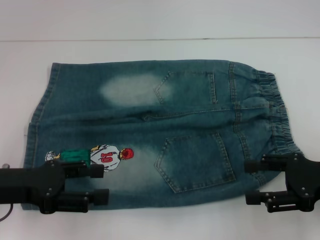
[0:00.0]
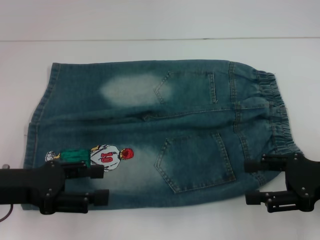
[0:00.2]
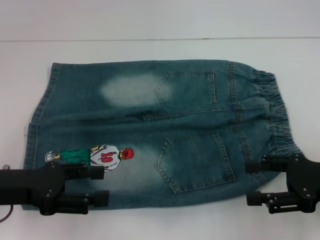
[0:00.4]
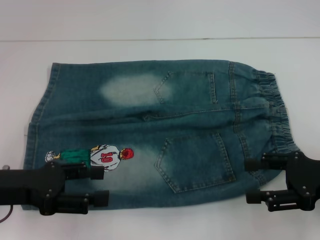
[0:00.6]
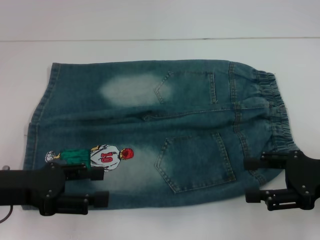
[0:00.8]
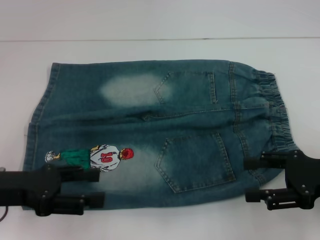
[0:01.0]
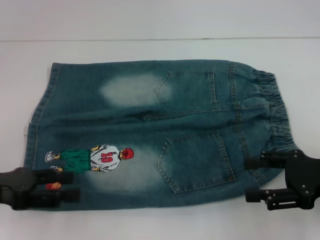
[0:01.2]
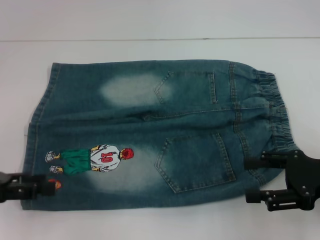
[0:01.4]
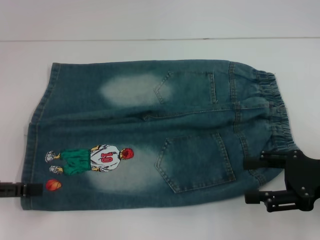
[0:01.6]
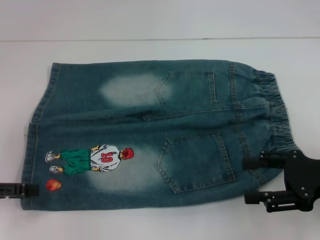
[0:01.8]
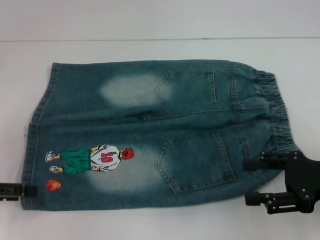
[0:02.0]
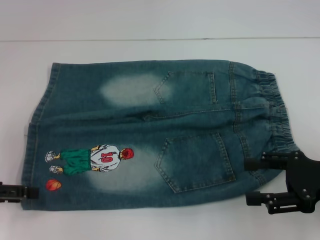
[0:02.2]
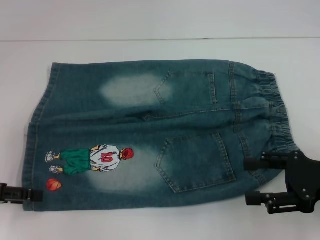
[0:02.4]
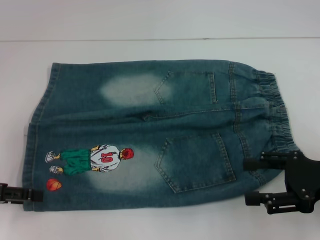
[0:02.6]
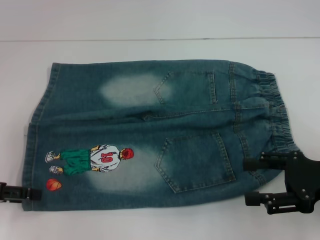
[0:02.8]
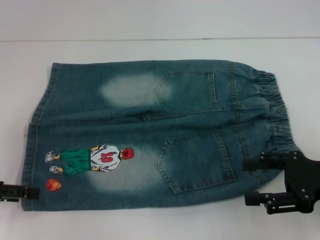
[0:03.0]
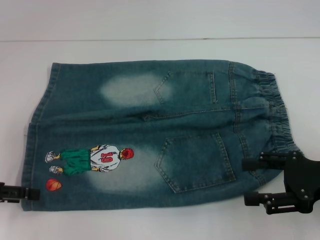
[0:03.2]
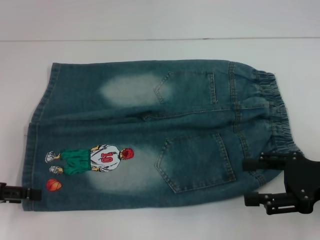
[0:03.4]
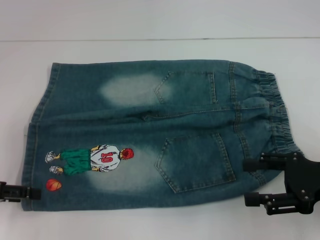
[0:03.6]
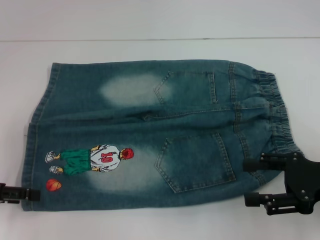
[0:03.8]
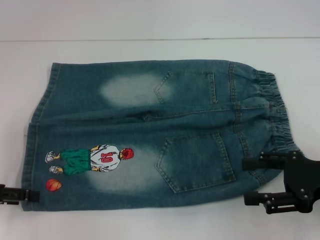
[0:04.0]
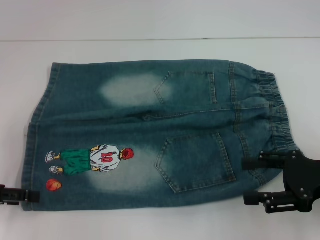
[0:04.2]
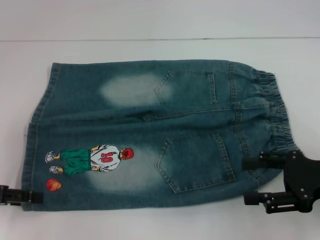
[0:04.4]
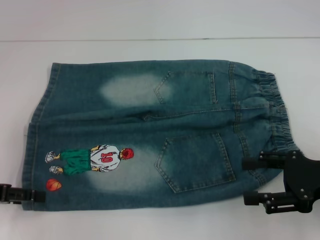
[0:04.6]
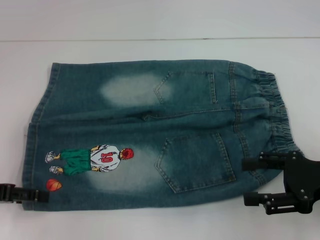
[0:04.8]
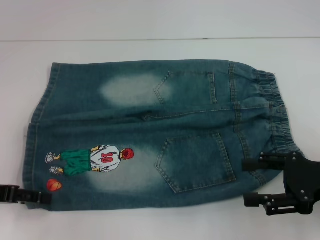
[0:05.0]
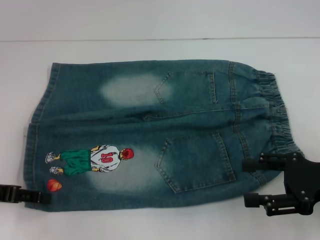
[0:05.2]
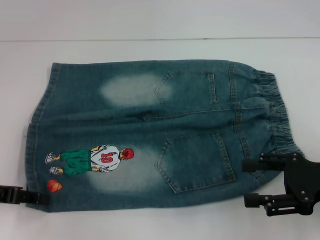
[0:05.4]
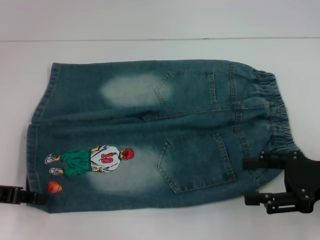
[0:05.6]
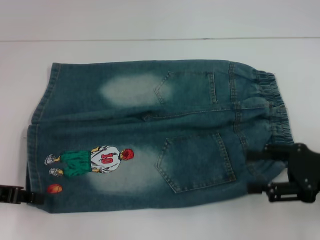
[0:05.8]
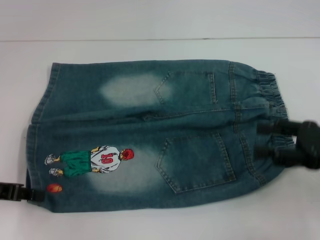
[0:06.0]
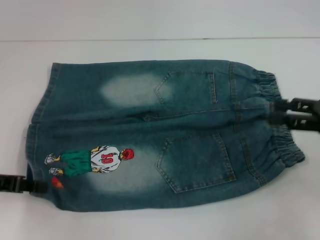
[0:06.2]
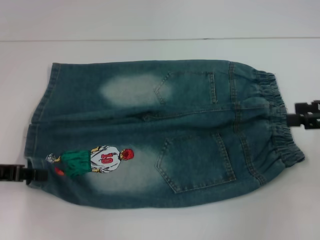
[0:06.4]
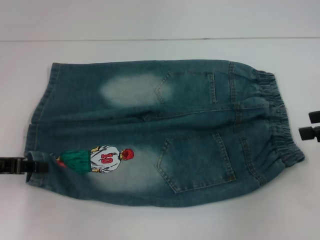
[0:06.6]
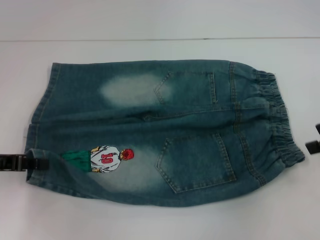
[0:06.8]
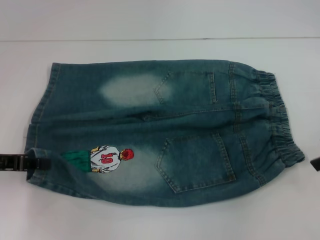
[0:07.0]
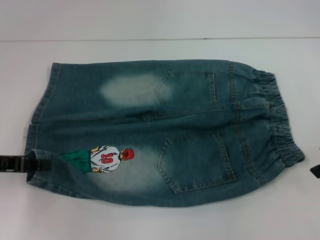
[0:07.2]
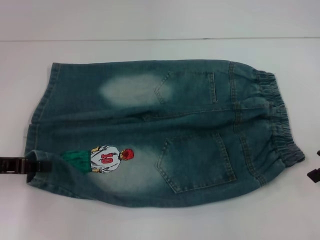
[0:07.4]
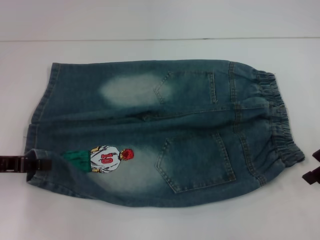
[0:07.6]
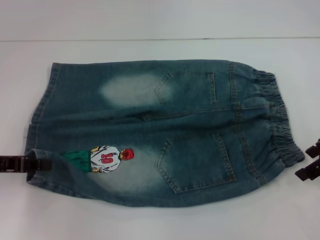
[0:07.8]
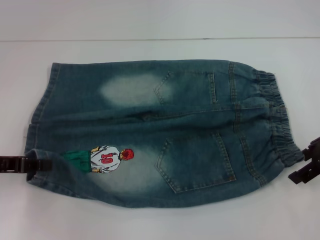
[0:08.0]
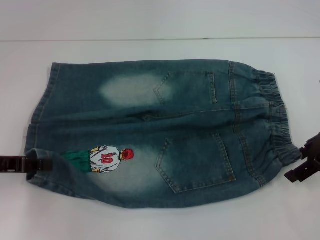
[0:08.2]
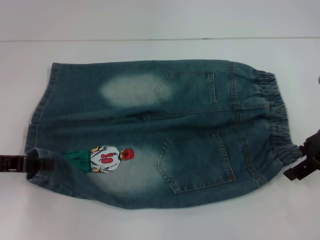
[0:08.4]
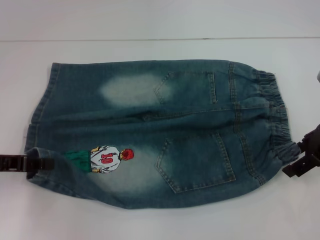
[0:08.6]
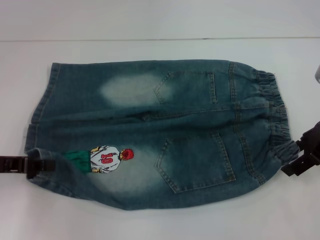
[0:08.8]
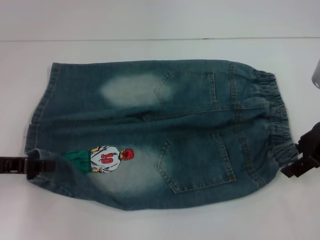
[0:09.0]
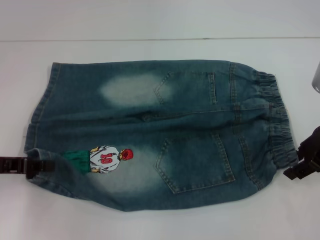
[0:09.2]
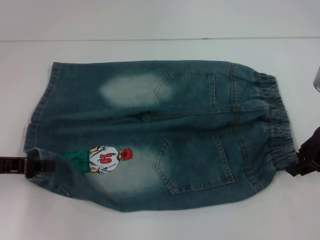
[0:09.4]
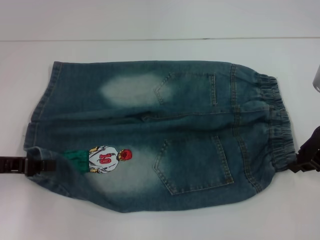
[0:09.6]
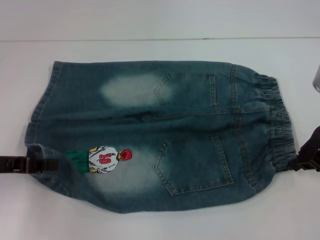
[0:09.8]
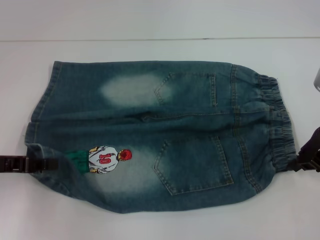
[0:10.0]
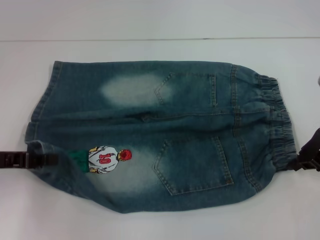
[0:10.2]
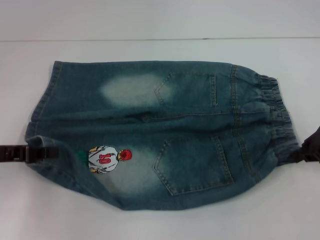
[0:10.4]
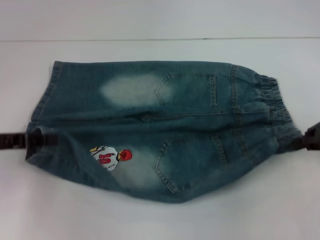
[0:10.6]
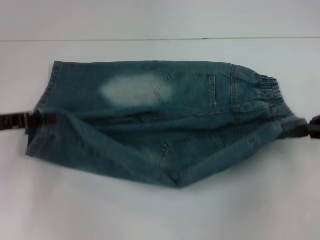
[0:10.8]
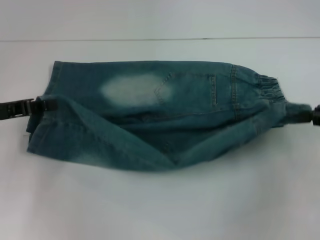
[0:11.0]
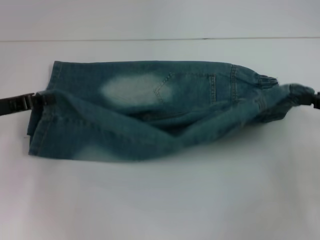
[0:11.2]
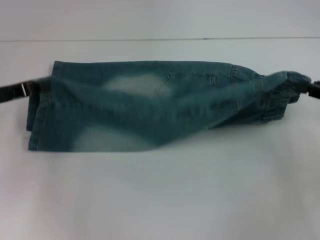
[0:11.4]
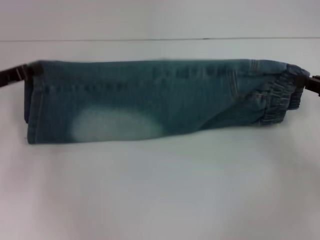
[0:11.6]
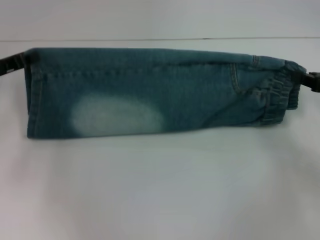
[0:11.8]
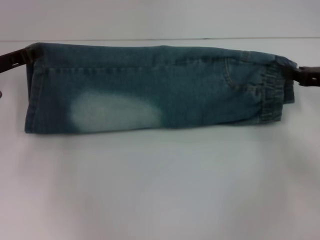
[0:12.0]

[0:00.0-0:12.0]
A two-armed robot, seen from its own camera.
Step, 0:00.0 to 0:05.0: Grab the lower left pant leg with your left hand.
Step, 0:05.4 to 0:09.2: Hold the lower right waistband with your right hand.
0:00.0 to 0:01.6: The left gripper moves to the left, approximately 10 cm.
0:01.6 to 0:03.0: The grippers move only a little.
0:03.0 to 0:04.4: Both grippers stay about where they are.
0:04.4 to 0:06.0: The left gripper closes up.
0:06.0 to 0:07.6: The right gripper moves forward, roughly 5 cm.
0:07.6 to 0:09.0: The grippers stay close to where they were, moving slightly.
0:09.0 to 0:10.4: The right gripper closes its fingers.
0:10.4 to 0:12.0: The right gripper changes place by approximately 5 cm. The left gripper travels forward by about 10 cm.

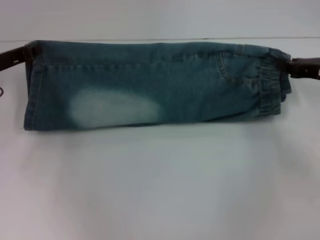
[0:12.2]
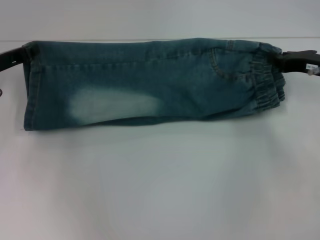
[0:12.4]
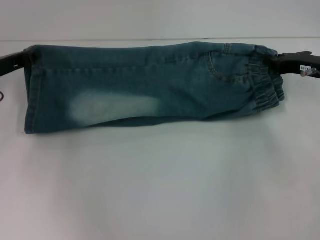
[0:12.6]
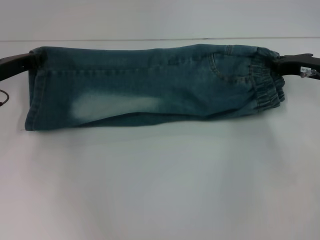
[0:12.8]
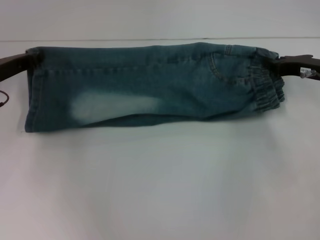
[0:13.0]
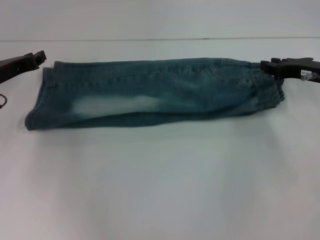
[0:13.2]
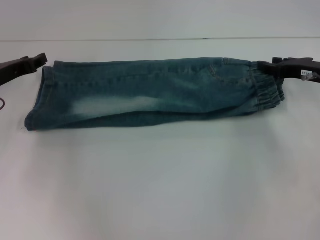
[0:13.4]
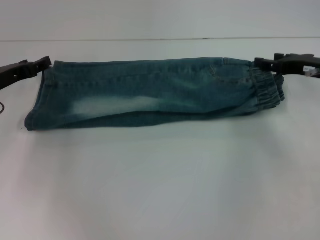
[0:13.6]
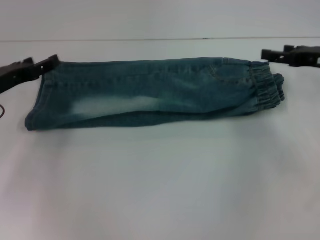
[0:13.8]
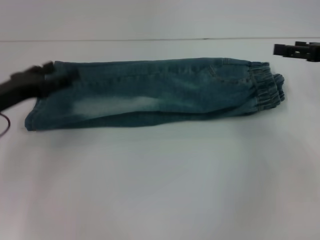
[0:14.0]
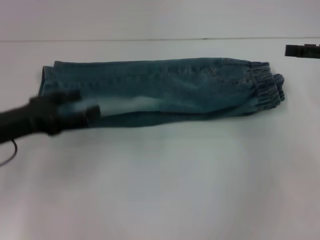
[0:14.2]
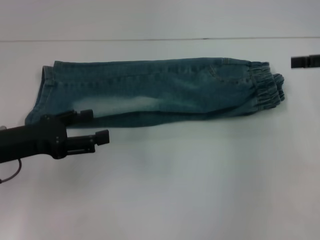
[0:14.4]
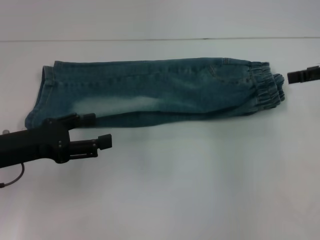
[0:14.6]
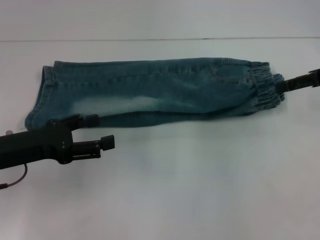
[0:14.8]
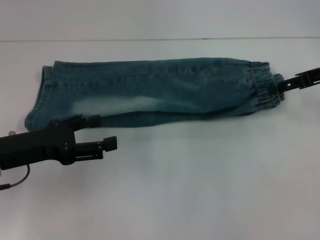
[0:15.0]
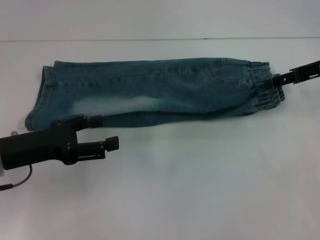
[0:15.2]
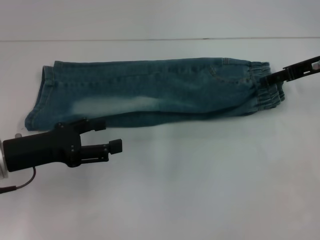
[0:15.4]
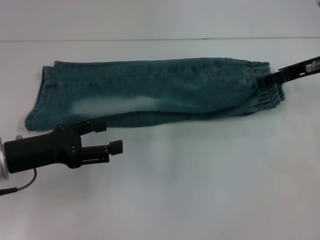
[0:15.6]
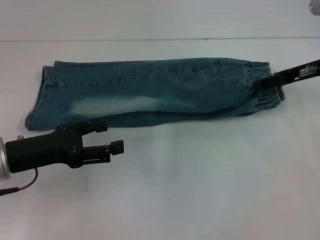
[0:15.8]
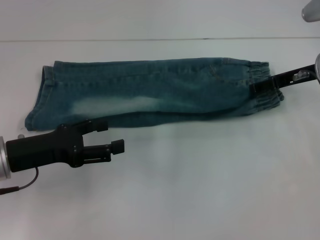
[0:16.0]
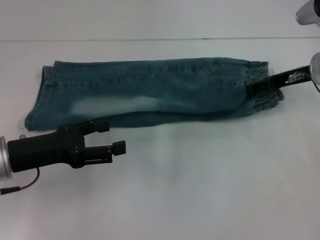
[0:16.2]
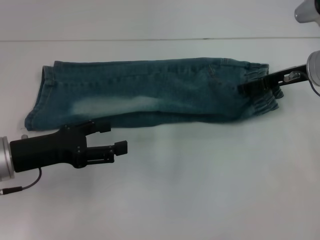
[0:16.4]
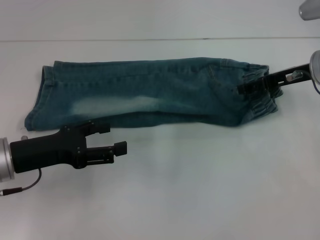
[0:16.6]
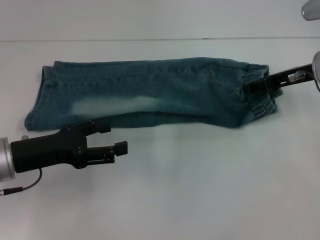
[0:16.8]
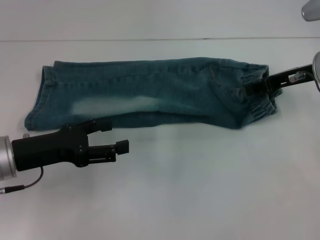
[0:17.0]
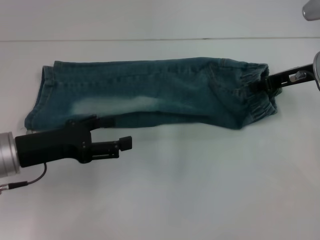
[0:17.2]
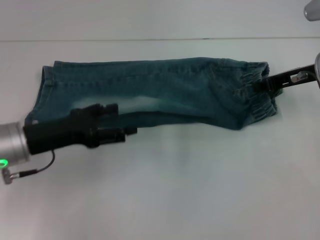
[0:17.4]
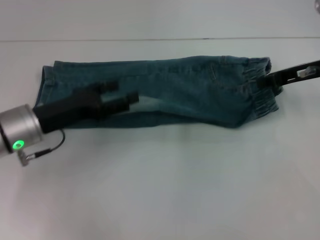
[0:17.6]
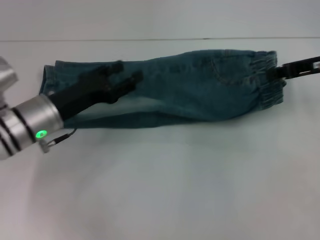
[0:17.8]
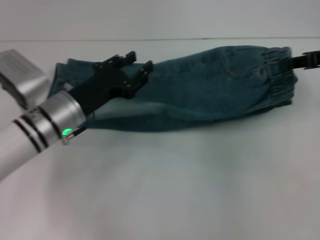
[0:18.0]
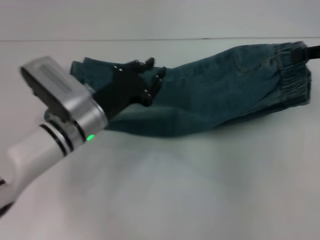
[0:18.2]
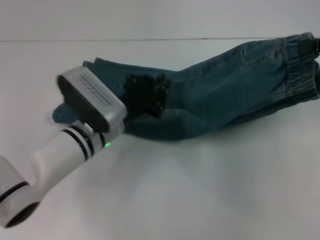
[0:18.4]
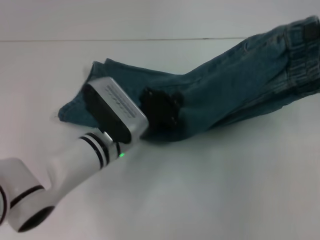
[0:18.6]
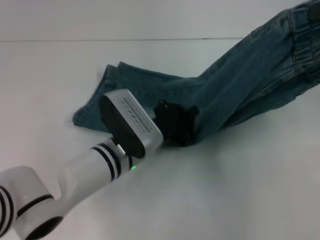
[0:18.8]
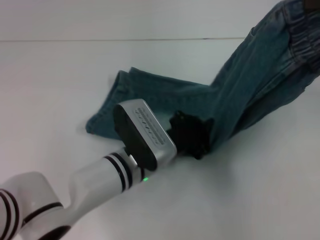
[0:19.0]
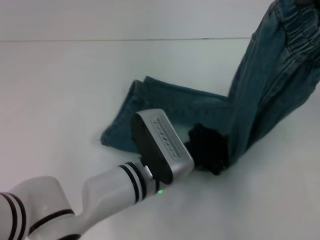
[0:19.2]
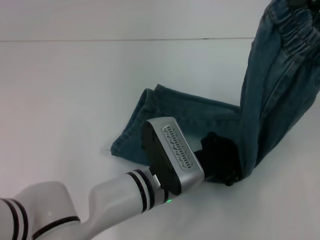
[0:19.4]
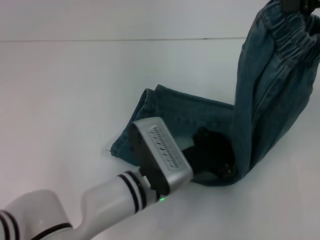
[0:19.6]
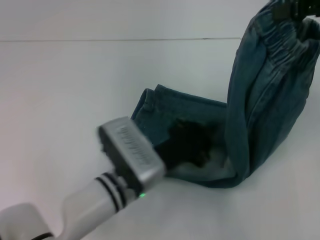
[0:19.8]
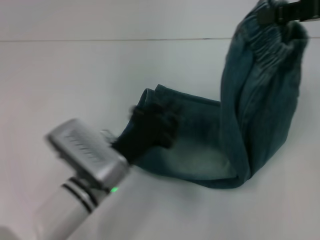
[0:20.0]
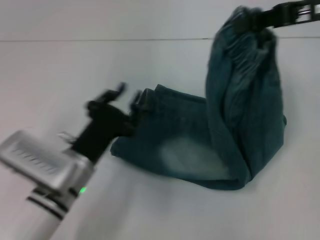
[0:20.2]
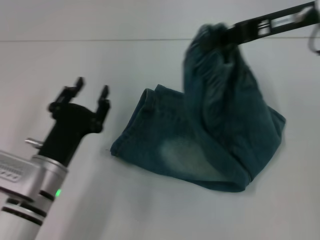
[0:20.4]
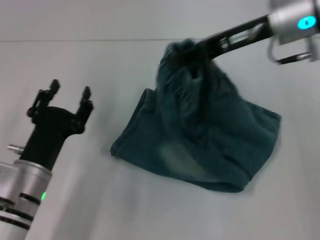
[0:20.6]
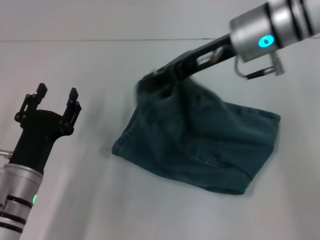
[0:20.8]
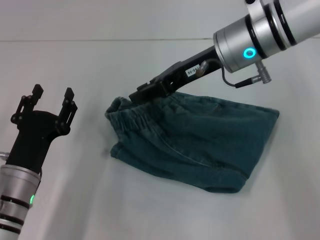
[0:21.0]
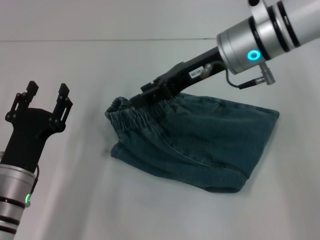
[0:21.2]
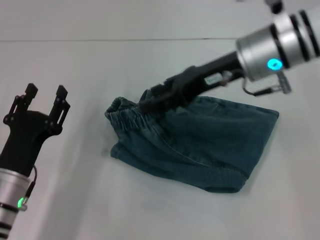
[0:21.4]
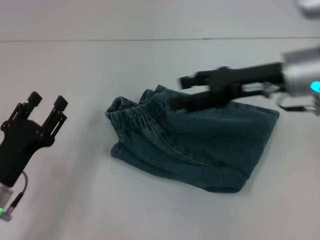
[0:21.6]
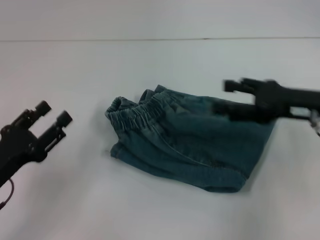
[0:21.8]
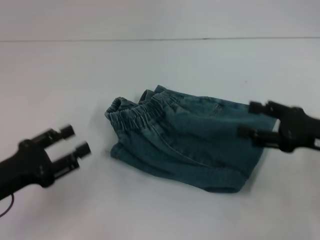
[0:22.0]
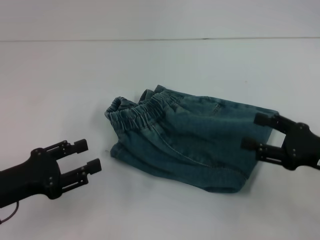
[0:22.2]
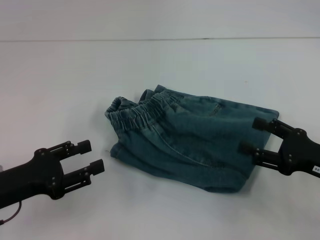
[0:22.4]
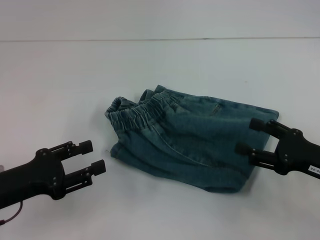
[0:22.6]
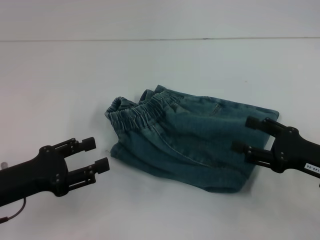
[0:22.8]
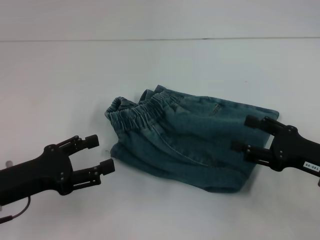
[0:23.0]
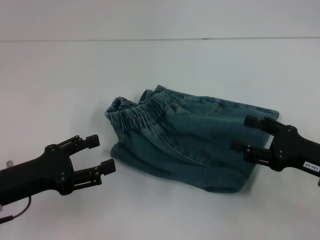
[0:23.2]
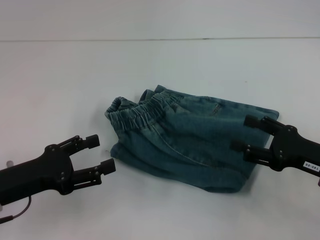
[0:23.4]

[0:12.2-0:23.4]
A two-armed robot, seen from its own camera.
Step, 0:13.6 to 0:17.0: Grab the waistband with your right hand.
Step, 0:17.2 to 0:19.6: Press the middle of the pants with your left hand.
Step, 0:19.8 to 0:21.2: Fold to the left with your right hand.
0:12.2 to 0:13.8: The left gripper opens. The right gripper opens.
0:13.8 to 0:15.4: The left gripper travels backward by some 10 cm. The right gripper moves roughly 5 cm.
0:15.4 to 0:17.0: The right gripper closes its fingers.
0:17.0 to 0:18.6: The left gripper goes some 15 cm to the right, and closes its fingers. The right gripper is displaced upward, to the right and backward by roughly 15 cm, and closes up.
0:18.6 to 0:20.2: The right gripper travels to the left by roughly 10 cm, while the left gripper is displaced backward and to the left by some 10 cm.
0:20.2 to 0:21.8: The left gripper is displaced to the left by some 15 cm, and opens its fingers, while the right gripper heads downward and backward, covering about 15 cm, travels to the left and back again, some 15 cm each way, and opens its fingers.
0:21.8 to 0:23.4: The right gripper shifts about 10 cm downward and backward.
